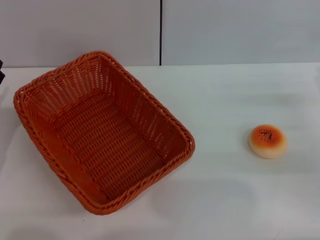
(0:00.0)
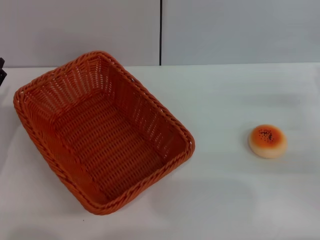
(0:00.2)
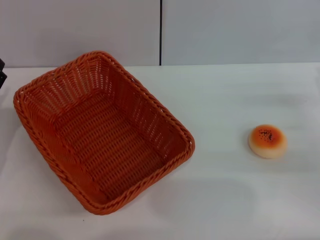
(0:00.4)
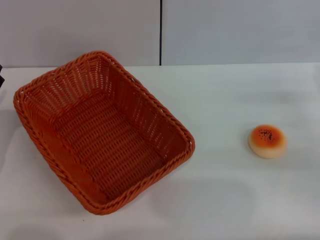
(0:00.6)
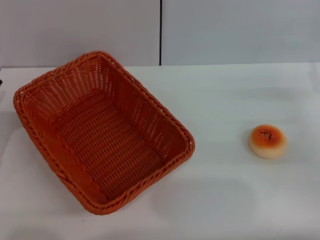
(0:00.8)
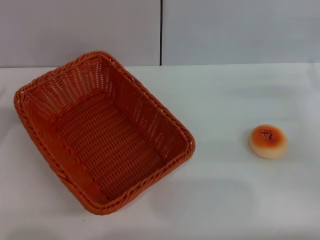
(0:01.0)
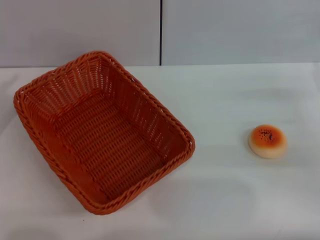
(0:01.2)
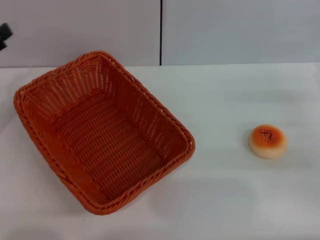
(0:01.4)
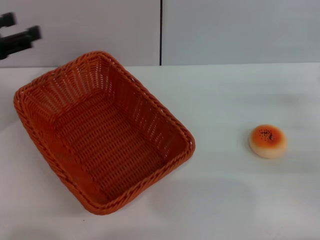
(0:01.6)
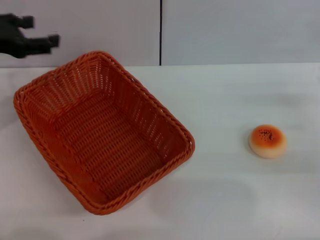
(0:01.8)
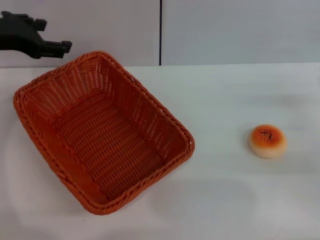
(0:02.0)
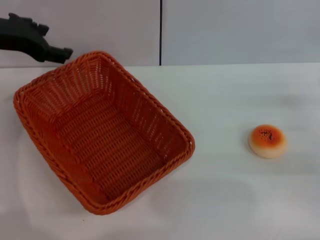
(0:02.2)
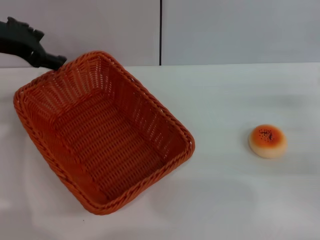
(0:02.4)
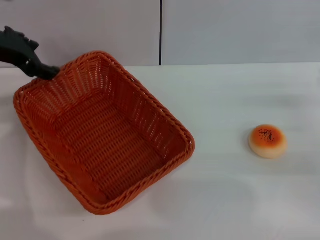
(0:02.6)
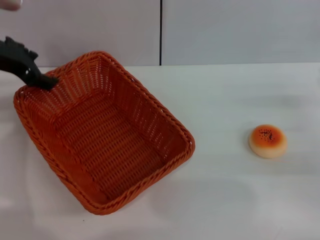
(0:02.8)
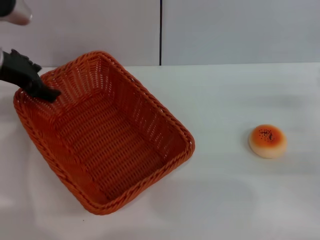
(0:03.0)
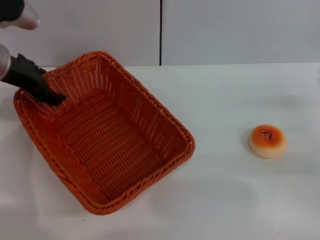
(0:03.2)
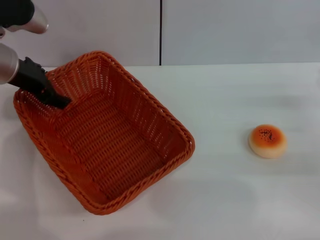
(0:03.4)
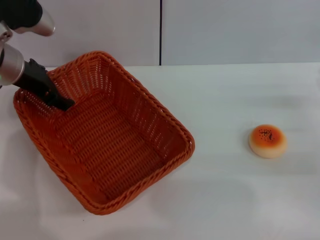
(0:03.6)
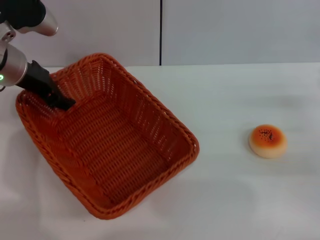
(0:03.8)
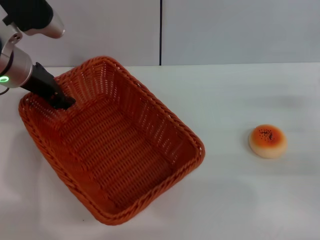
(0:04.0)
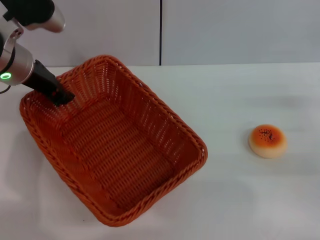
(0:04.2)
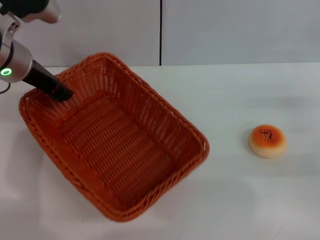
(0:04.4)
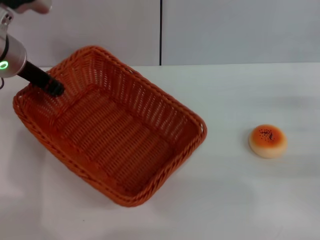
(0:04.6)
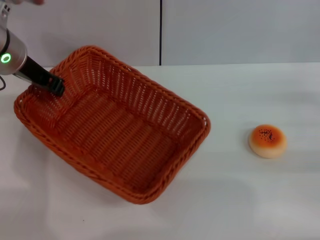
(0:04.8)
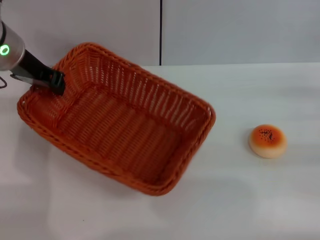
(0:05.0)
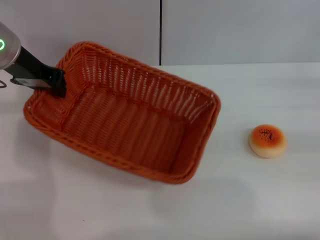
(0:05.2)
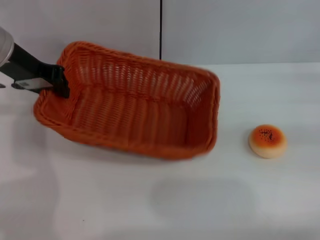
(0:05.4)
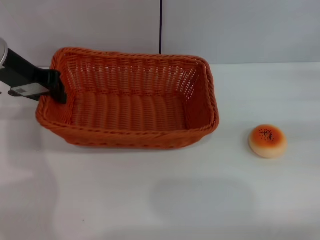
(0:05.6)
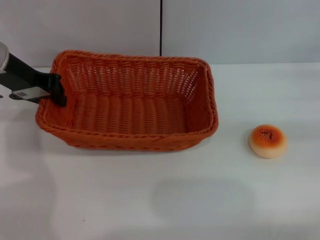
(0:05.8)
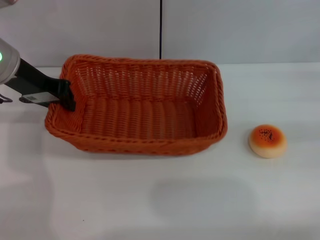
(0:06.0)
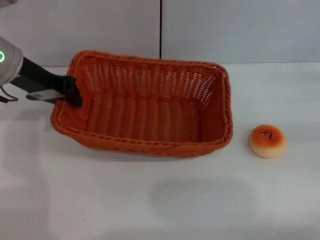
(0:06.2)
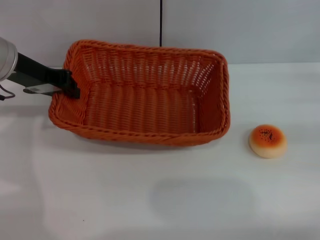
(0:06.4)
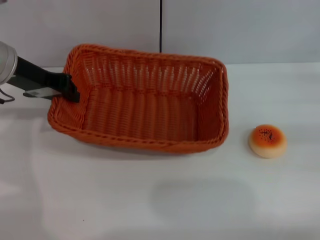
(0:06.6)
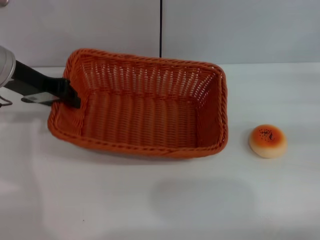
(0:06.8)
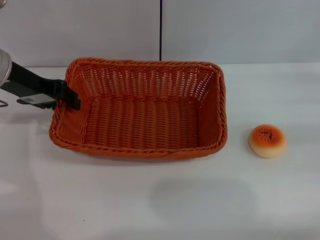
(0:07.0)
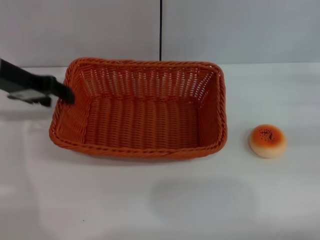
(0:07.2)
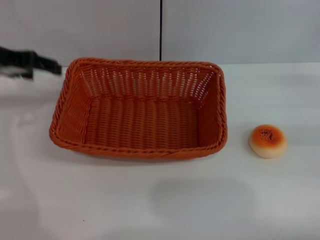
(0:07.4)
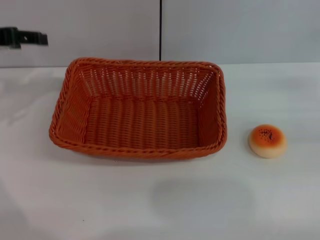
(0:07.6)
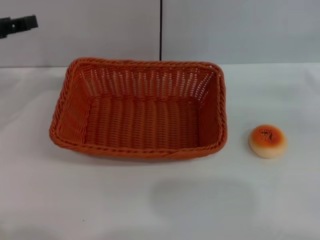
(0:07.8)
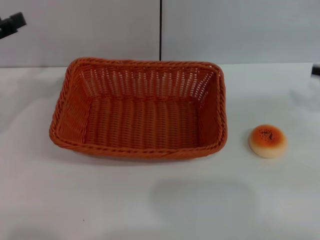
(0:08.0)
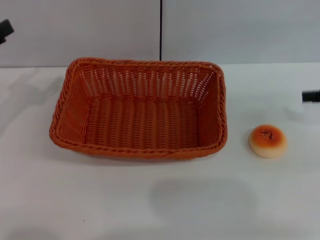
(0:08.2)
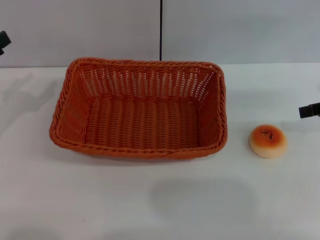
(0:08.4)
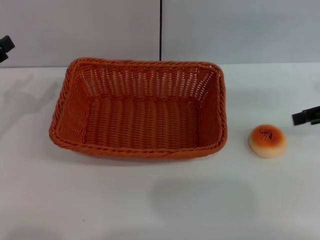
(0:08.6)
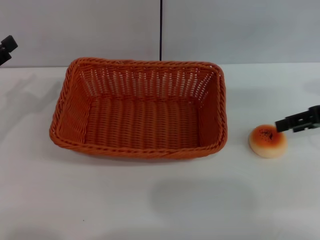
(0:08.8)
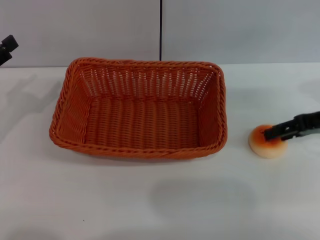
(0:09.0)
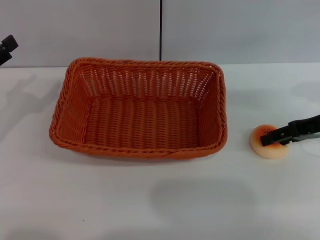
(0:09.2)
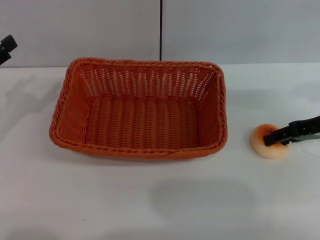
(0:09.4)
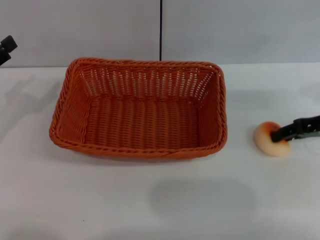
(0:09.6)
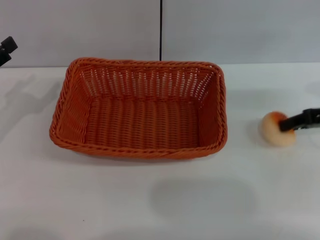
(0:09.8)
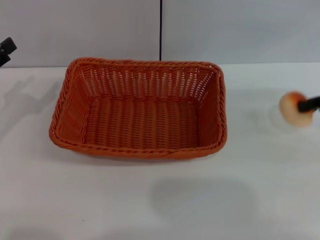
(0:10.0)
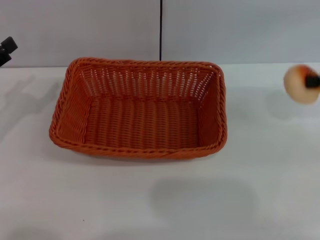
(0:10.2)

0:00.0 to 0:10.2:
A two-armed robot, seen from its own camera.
Step, 0:00.0 to 0:07.2: Move the basket to the center of view with the left gripper.
Step, 0:07.4 to 0:10.0: Pick up the egg yolk pastry with the right gripper.
0:01.4 to 0:03.0: The left gripper travels to the right, forward and upward by roughly 15 cm.
0:03.0 to 0:04.4: The left gripper closes.
0:04.4 to 0:05.8: The right gripper is displaced to the right, forward and upward by about 10 cm.
0:05.8 to 0:07.2: The left gripper opens its fingers.
0:07.2 to 0:08.8: The right gripper travels to the left and upward by roughly 10 cm. The left gripper moves backward, to the left and downward, some 15 cm, and opens.
0:08.8 to 0:10.2: The right gripper closes.

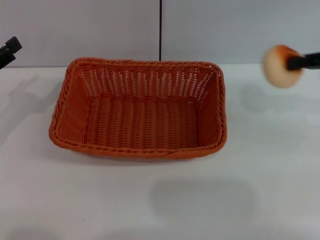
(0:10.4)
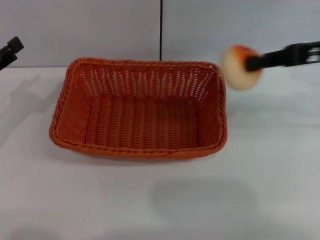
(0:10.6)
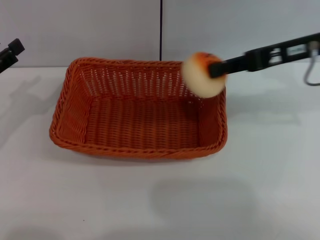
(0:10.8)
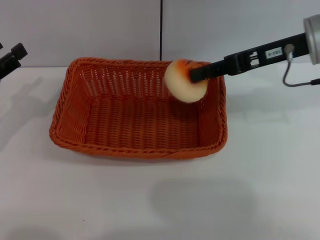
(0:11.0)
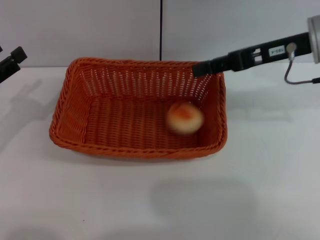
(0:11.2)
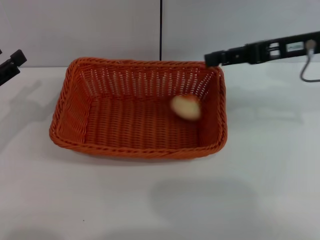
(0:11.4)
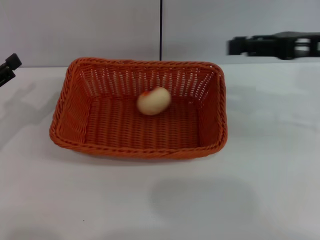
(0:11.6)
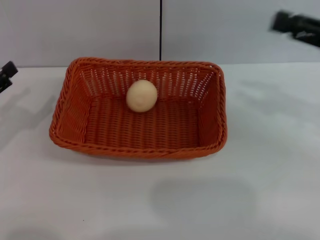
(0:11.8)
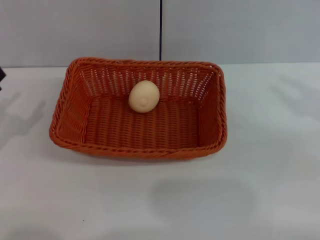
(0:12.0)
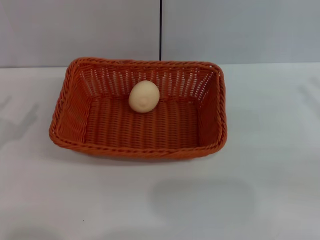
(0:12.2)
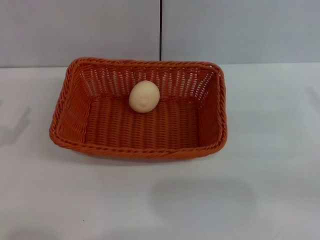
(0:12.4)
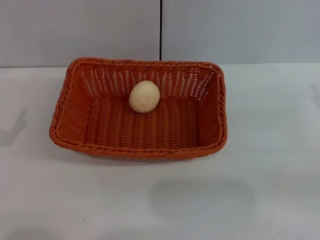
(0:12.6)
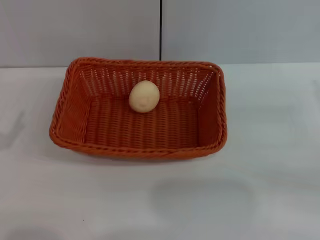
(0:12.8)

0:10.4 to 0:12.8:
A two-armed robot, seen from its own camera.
Step, 0:10.4 to 0:11.2: Place the egg yolk pastry into the basket with the right gripper.
0:10.4 to 0:11.6: The right gripper goes about 5 cm to the left, and opens.
0:11.6 to 0:12.8: The right gripper shifts some 15 cm downward, to the right and backward. The left gripper is displaced backward by approximately 5 cm.

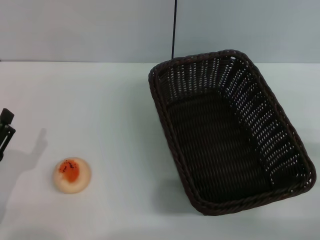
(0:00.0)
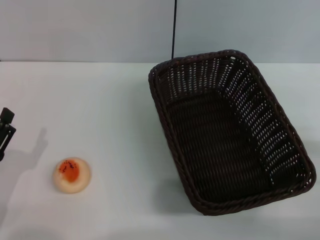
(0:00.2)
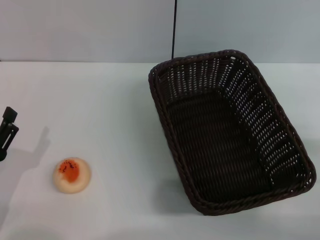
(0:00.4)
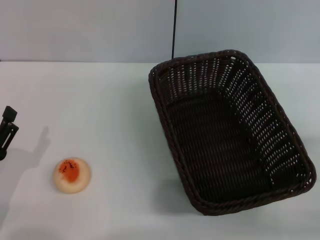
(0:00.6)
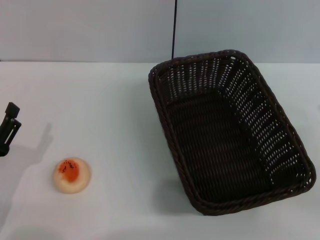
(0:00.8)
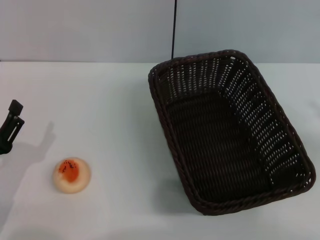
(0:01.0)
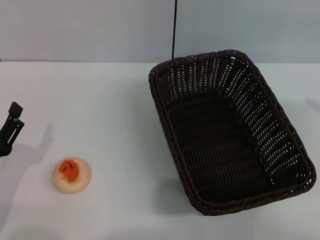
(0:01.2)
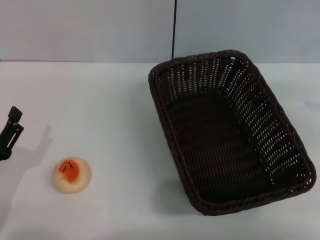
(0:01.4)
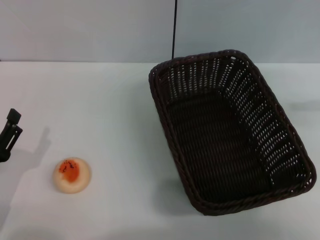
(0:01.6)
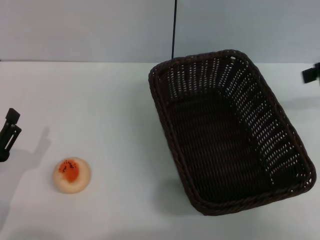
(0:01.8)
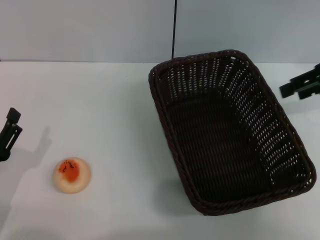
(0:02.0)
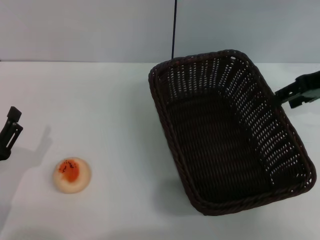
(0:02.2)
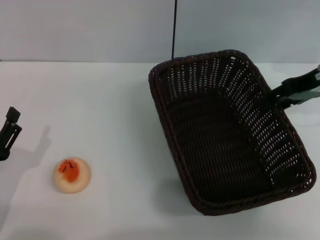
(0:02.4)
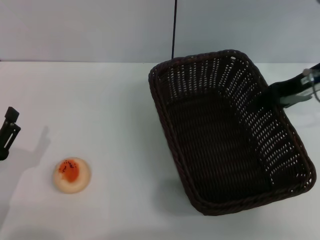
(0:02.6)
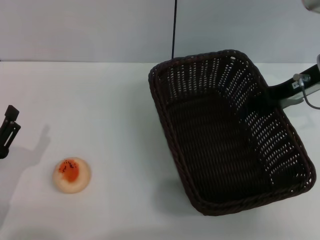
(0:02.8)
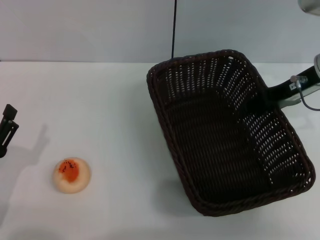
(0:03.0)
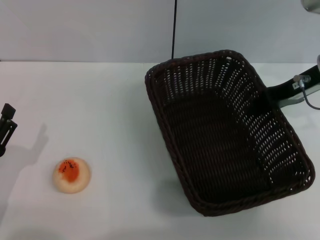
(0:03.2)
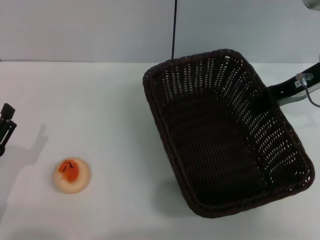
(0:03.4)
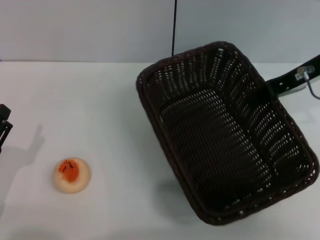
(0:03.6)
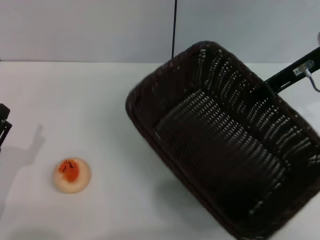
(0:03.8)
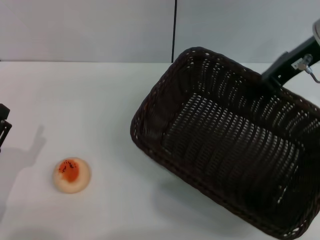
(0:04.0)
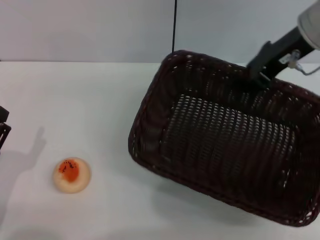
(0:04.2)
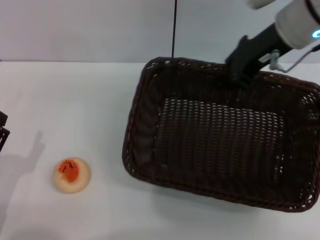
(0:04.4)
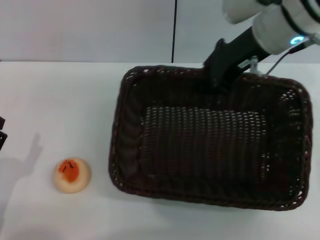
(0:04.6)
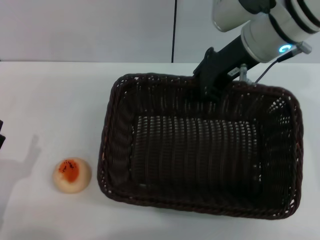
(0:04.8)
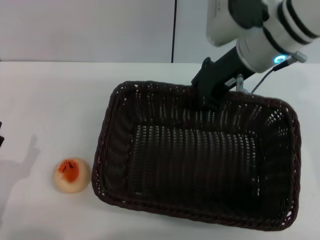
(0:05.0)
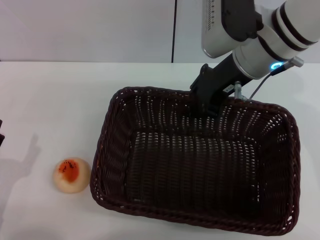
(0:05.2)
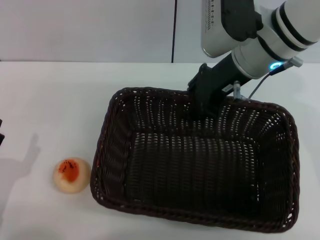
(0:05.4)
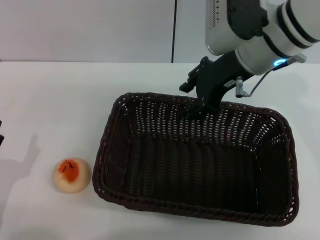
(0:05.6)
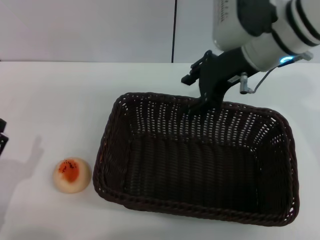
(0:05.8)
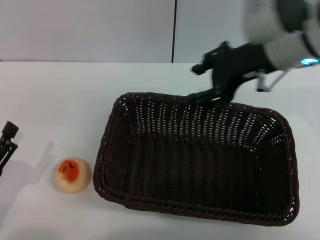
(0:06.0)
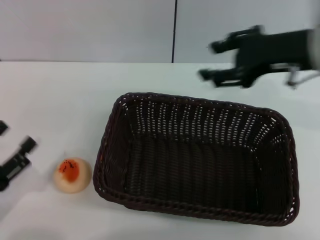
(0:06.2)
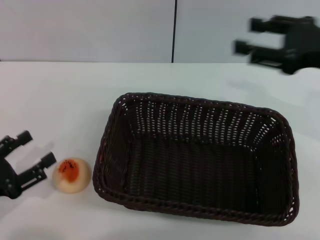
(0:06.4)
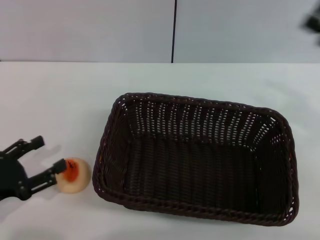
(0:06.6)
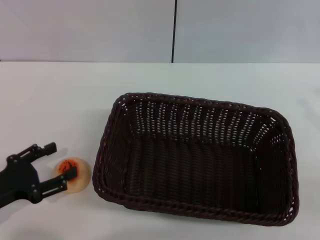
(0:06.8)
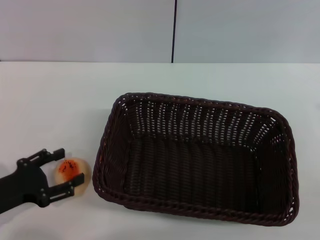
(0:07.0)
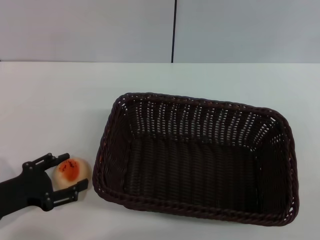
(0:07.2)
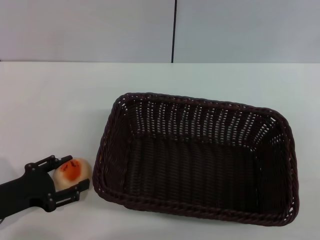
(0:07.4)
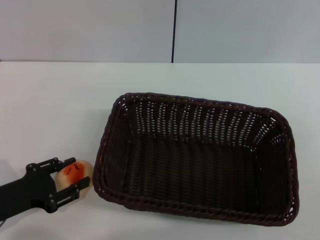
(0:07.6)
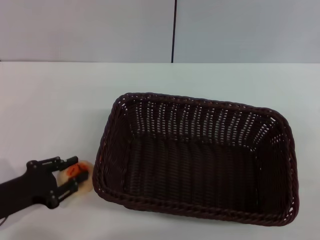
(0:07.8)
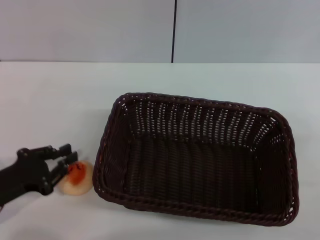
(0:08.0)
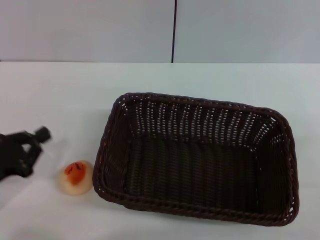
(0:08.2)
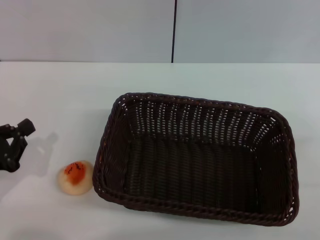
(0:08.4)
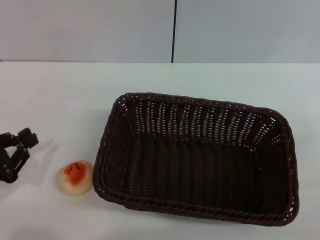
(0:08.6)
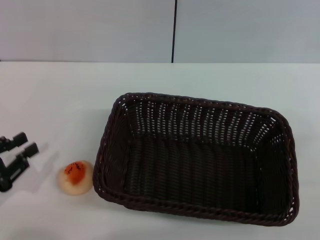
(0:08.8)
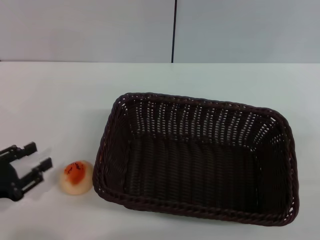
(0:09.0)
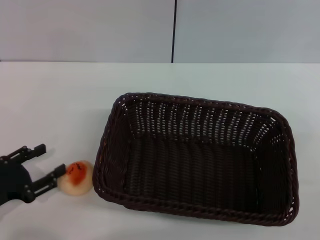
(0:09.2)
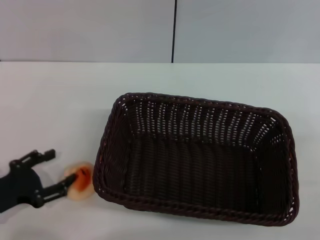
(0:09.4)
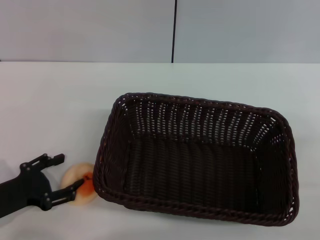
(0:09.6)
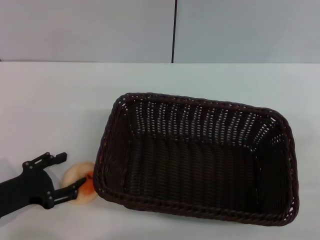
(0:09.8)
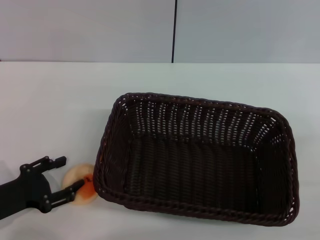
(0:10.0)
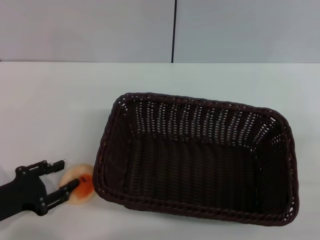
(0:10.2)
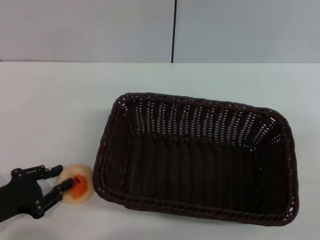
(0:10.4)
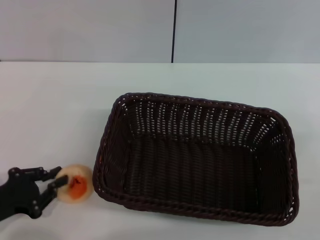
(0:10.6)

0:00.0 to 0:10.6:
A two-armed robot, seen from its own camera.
Step, 0:00.0 to 0:06.0: Move the basket to the center of view with the right gripper.
0:00.0 to 0:01.6: The right gripper shifts about 25 cm upward and forward.
0:01.6 to 0:03.0: The right gripper shifts roughly 15 cm to the left and downward.
0:03.0 to 0:04.6: The right gripper heads to the left and upward, covering roughly 10 cm, and closes its fingers.
0:04.6 to 0:06.0: The right gripper opens.
0:06.0 to 0:07.6: The right gripper moves to the right, backward and downward, about 30 cm, while the left gripper is displaced forward by some 5 cm.
0:07.6 to 0:09.0: The left gripper closes its fingers.
0:09.0 to 0:10.6: The left gripper opens, then closes again.
